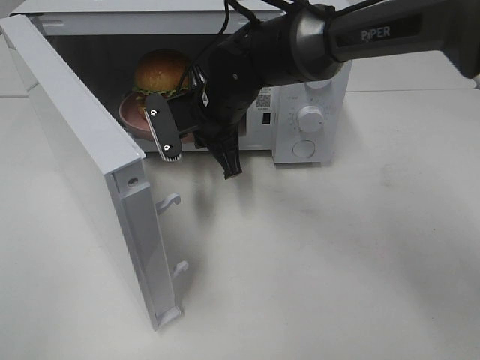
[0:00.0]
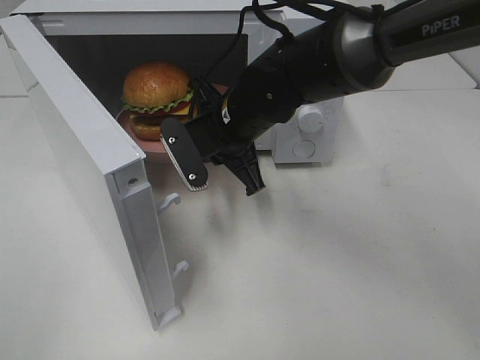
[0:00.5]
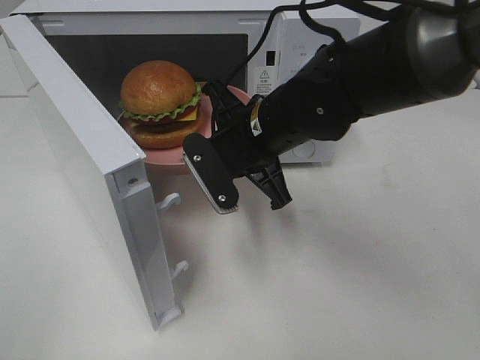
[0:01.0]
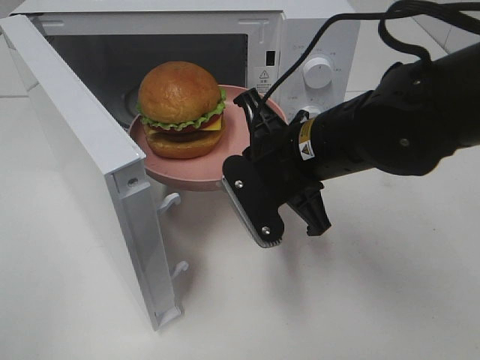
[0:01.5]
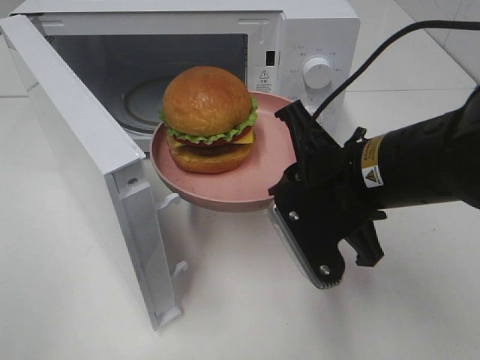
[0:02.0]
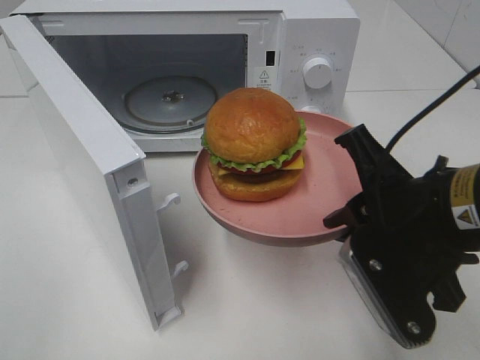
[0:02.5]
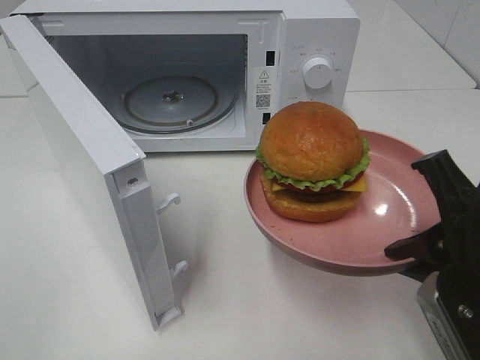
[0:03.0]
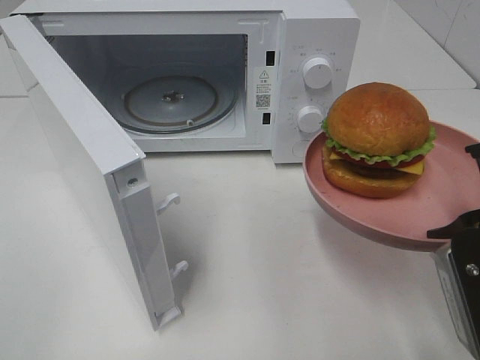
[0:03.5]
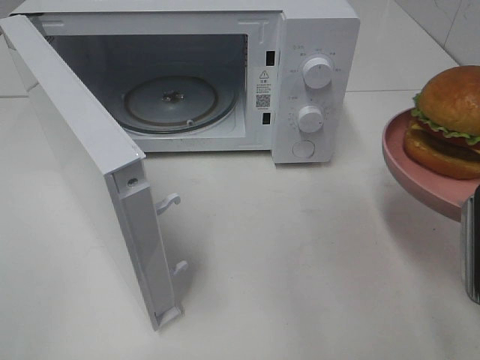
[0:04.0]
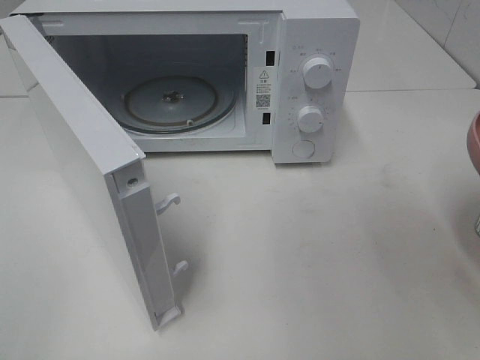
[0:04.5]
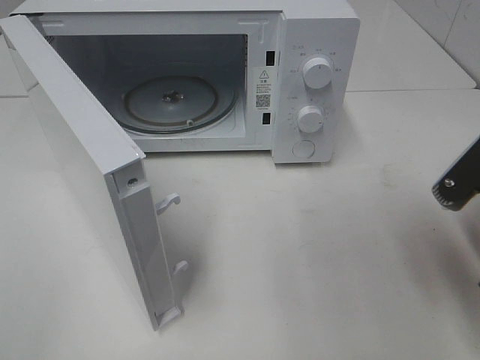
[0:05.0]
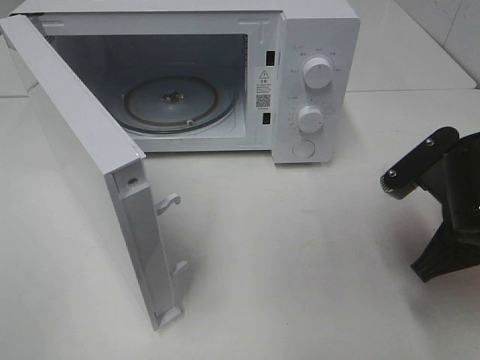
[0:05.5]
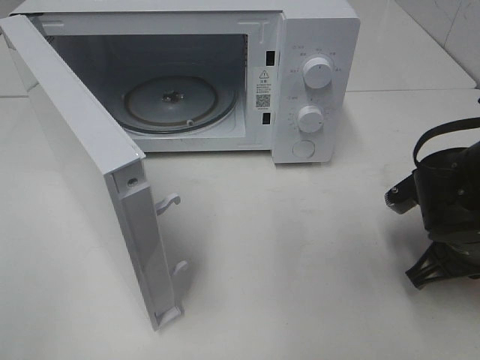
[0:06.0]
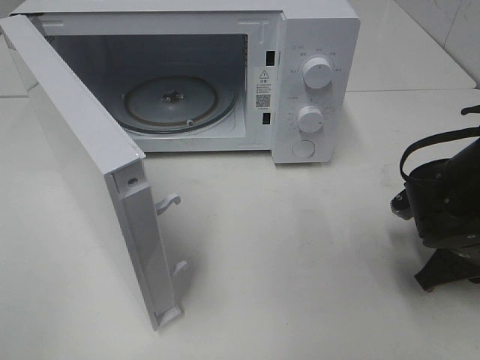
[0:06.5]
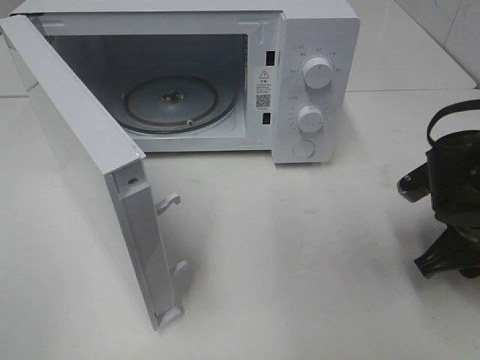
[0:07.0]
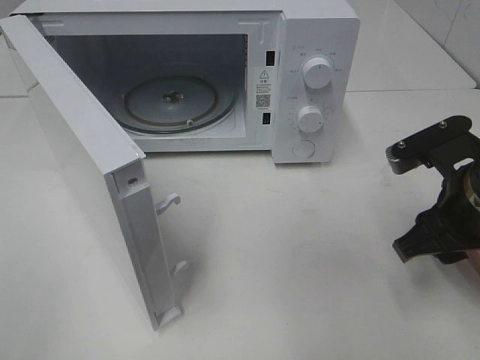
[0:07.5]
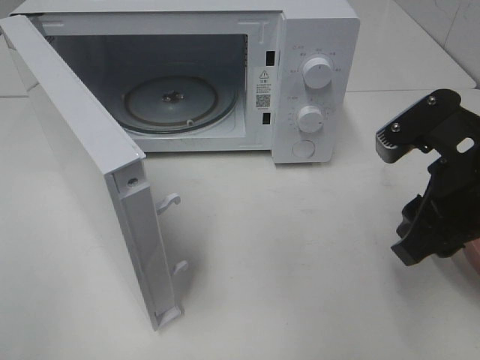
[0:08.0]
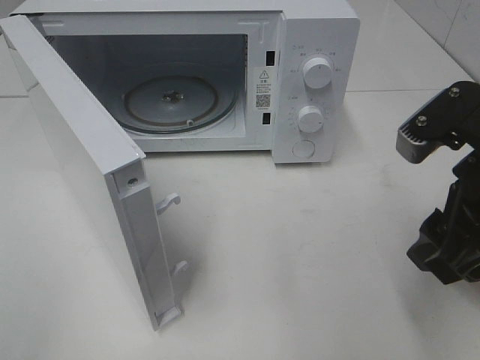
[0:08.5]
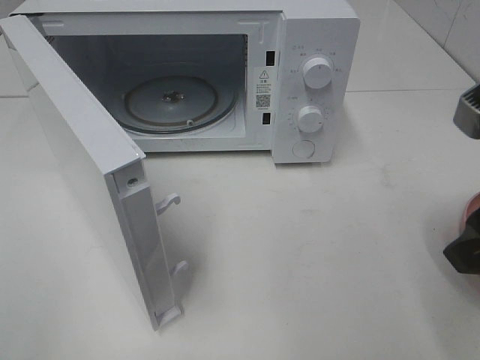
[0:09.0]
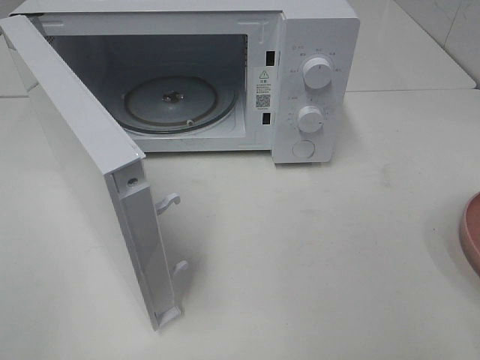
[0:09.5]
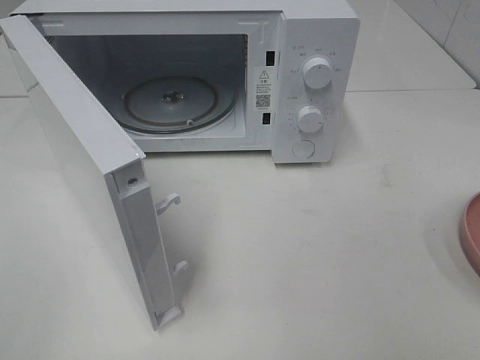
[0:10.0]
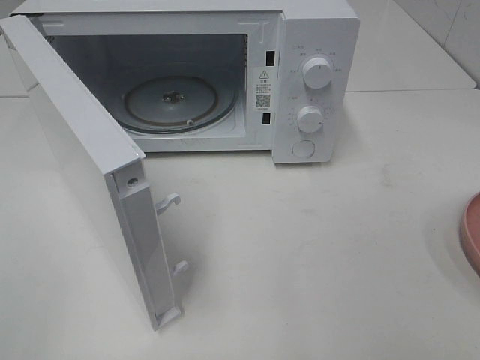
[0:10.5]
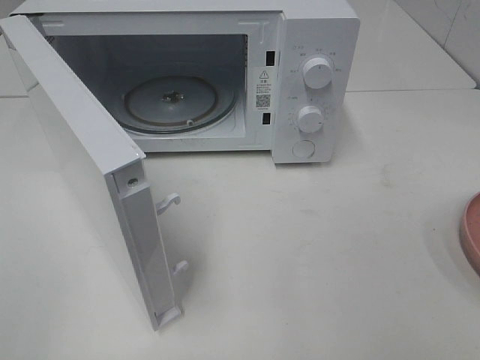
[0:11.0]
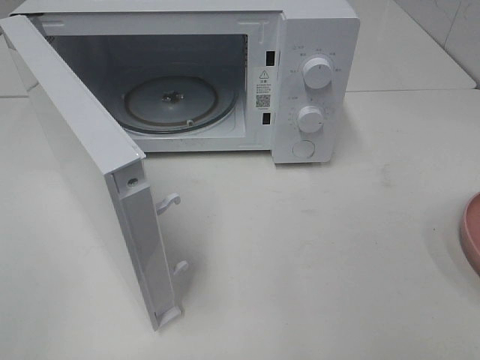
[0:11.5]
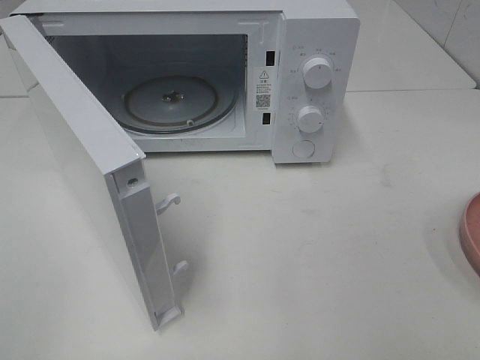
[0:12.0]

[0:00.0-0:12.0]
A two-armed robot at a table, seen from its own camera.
Task of the whole recording: Heat the burger.
Step, 0.0 to 7.0 s: Right hand: place the plate on the table.
0.0 to 2.0 s: The right gripper travels backward and to the right by some 20 cm.
2.0 to 4.0 s: The right gripper goes roughly 15 cm to the right and backward.
4.0 to 6.0 s: The right gripper moves downward and forward, about 15 cm.
6.0 to 8.0 s: The right gripper goes some 10 cm upward, and opens up.
8.0 to 10.0 s: The right gripper moves backward, to the right and upward, approximately 20 cm.

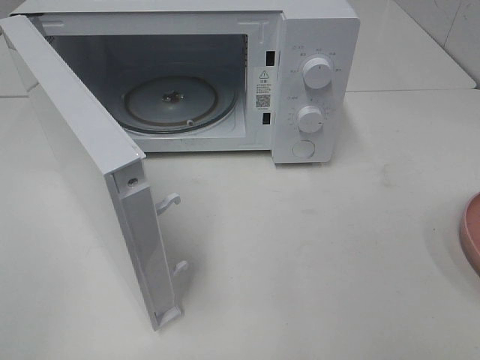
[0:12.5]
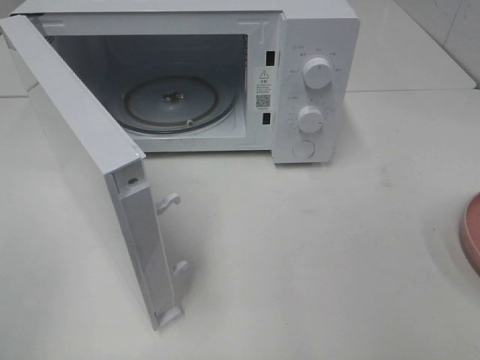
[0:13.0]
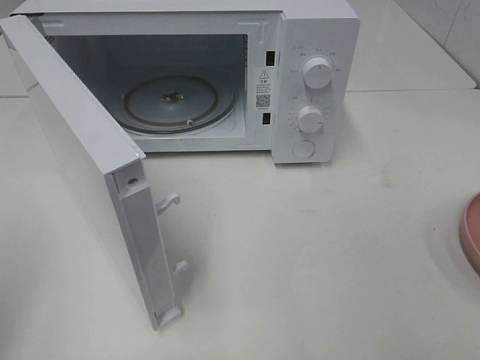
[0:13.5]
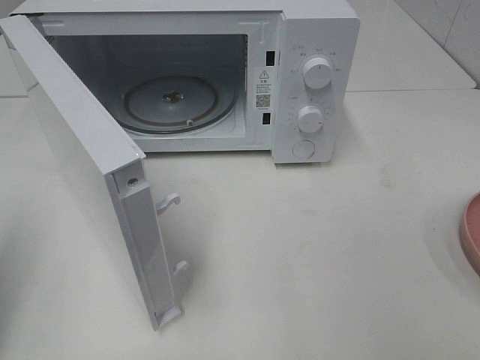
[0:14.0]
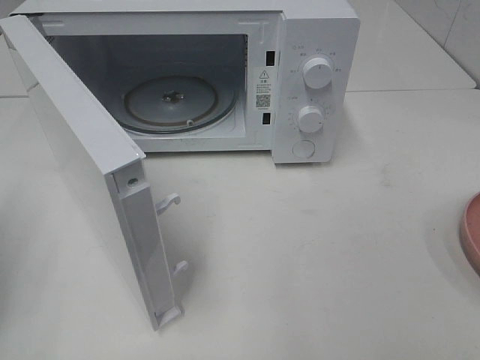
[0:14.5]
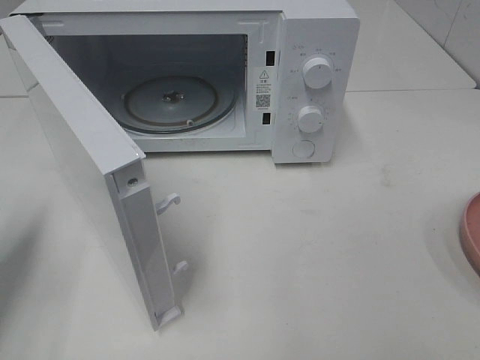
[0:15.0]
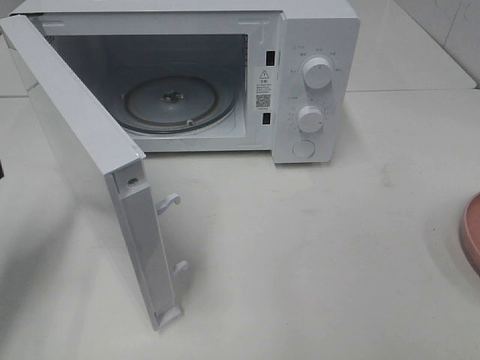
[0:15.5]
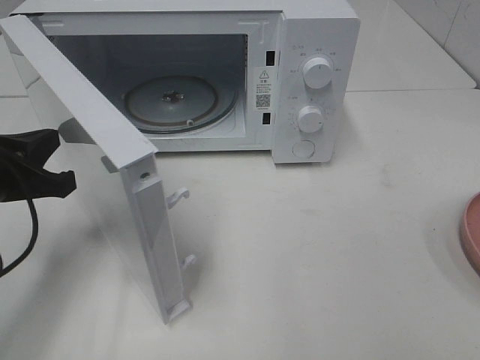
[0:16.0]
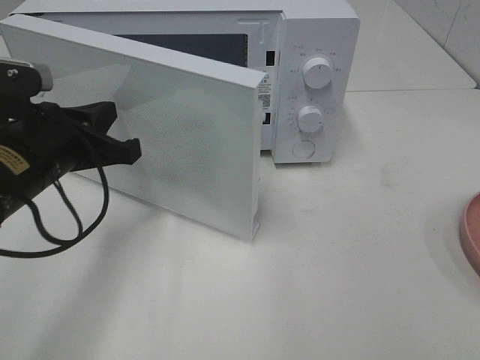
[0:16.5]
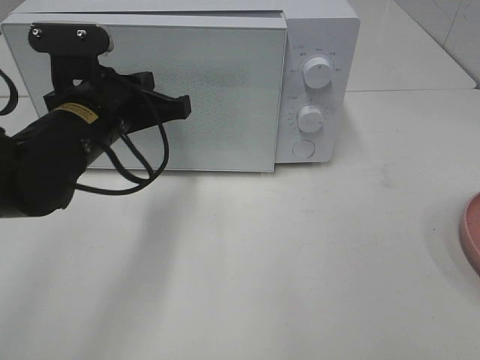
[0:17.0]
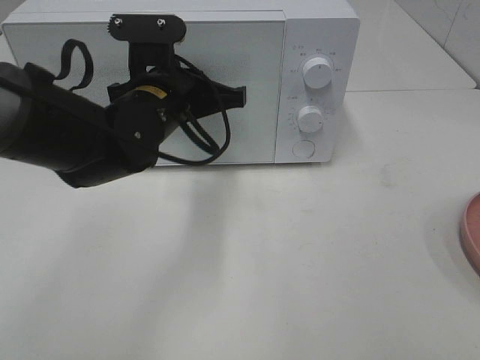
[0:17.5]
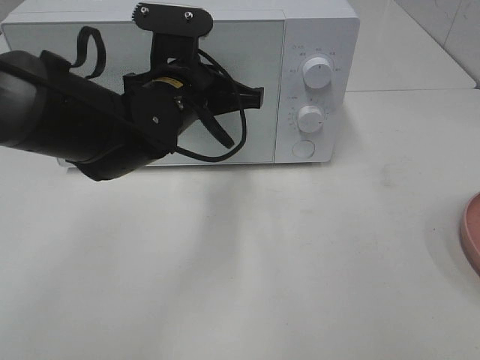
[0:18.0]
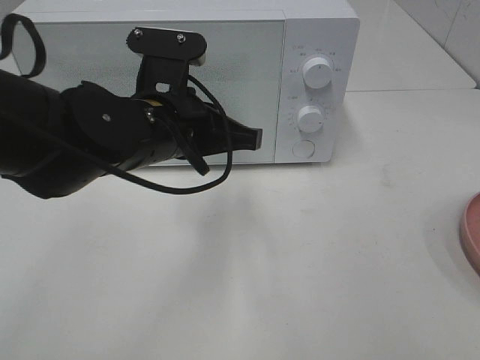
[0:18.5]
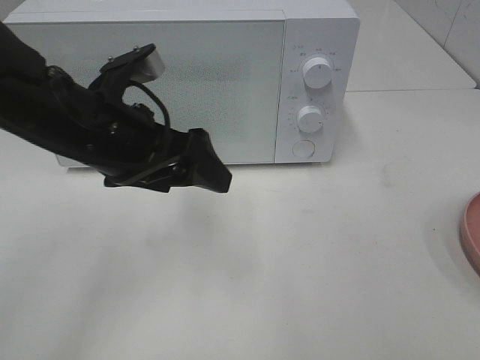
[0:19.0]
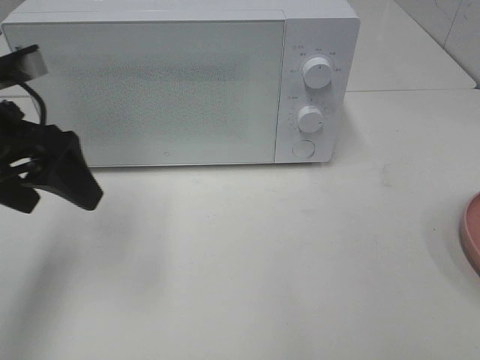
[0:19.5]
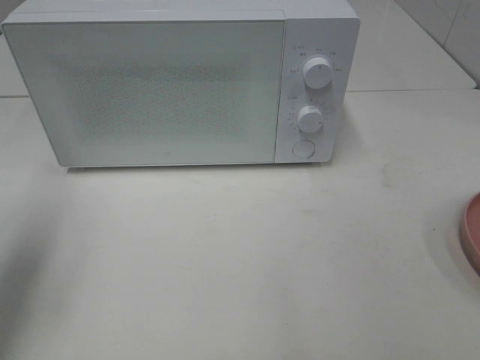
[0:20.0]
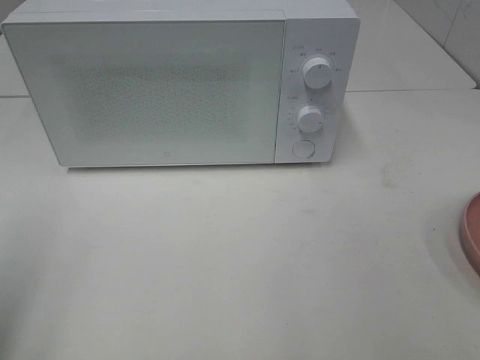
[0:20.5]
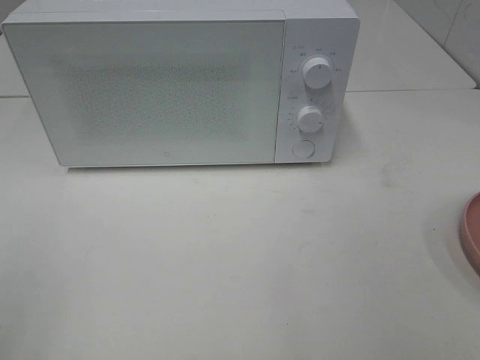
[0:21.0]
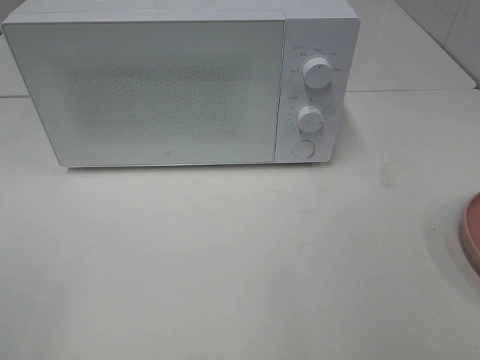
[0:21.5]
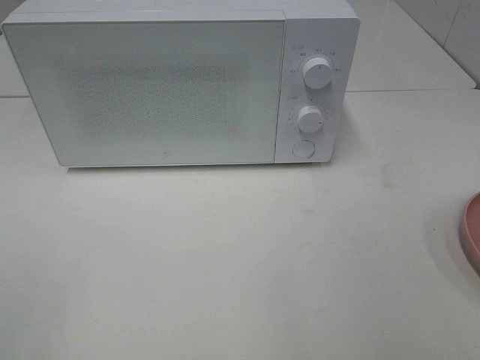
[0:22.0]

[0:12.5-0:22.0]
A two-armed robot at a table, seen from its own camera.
Task of the whole recording: Heat the burger.
Step, 12.5 to 18.5 s: Left hand: close the microwave door.
14.5 to 16.5 s: The left gripper heads to the right and forward, covering about 20 cm.
16.5 to 18.0 s: The left gripper shifts roughly 15 cm to the right and forward.
18.0 to 20.0 s: The left gripper heads to the left and backward, covering roughly 30 cm, and opens.
20.0 to 22.0 s: The left gripper travels backward by about 20 cm.

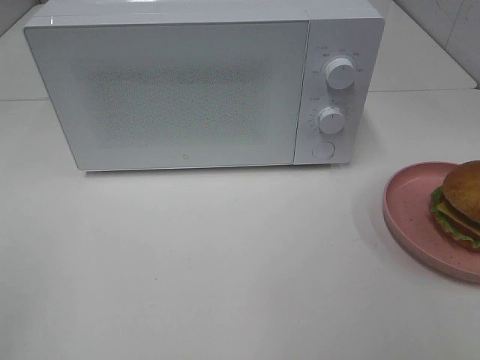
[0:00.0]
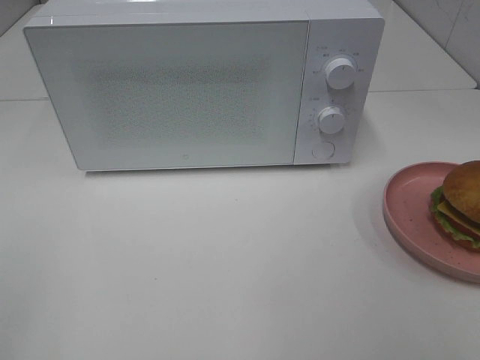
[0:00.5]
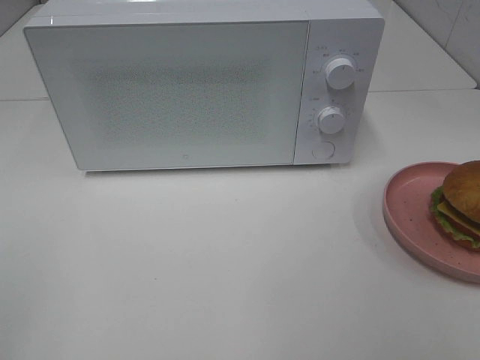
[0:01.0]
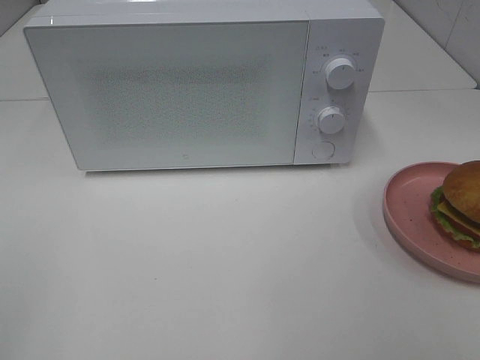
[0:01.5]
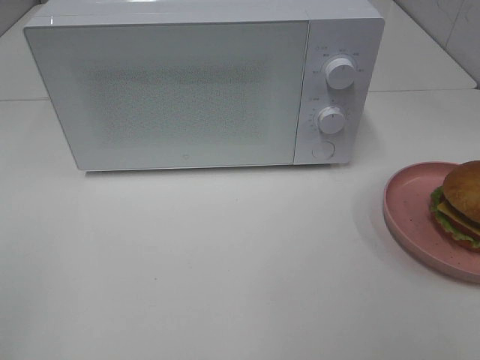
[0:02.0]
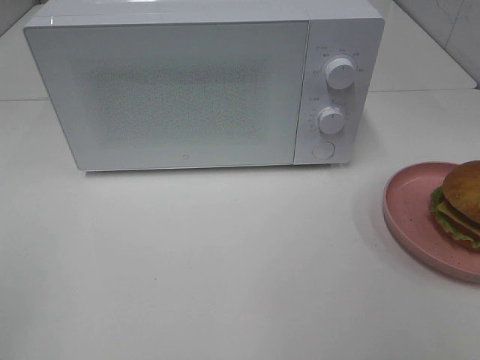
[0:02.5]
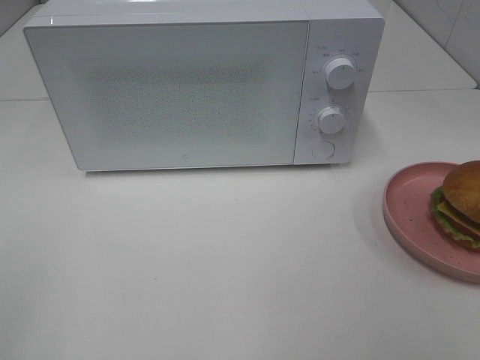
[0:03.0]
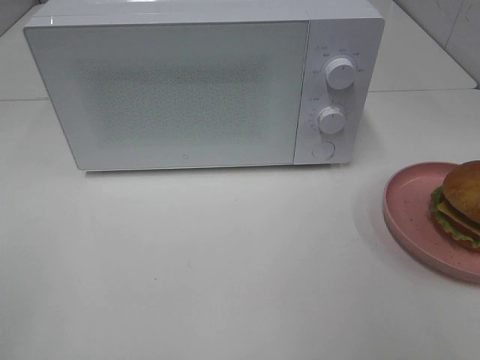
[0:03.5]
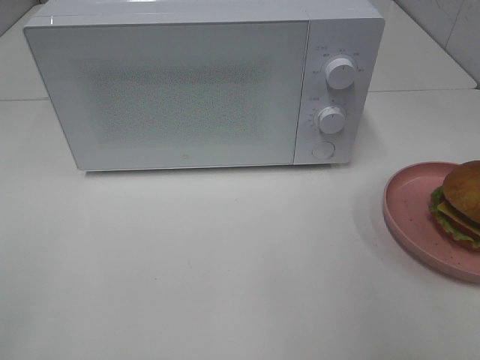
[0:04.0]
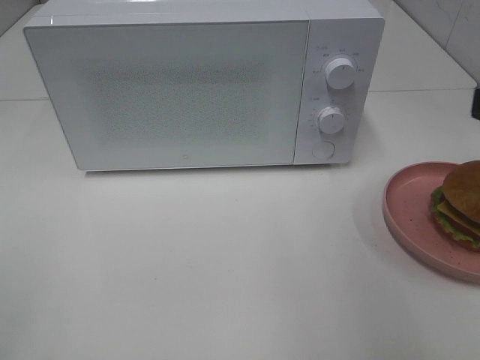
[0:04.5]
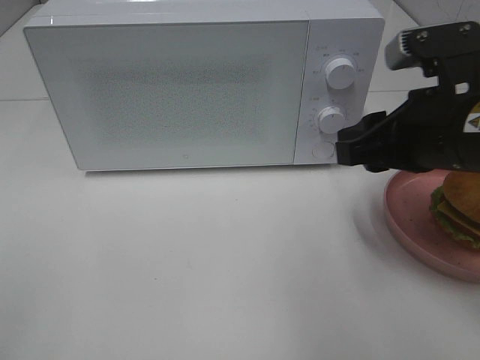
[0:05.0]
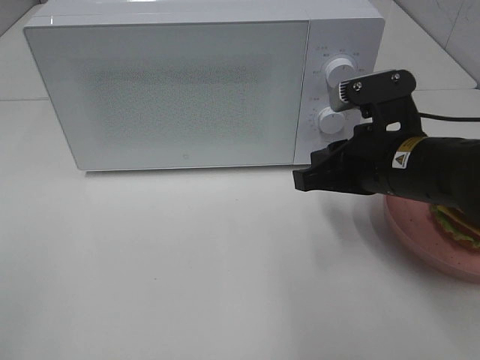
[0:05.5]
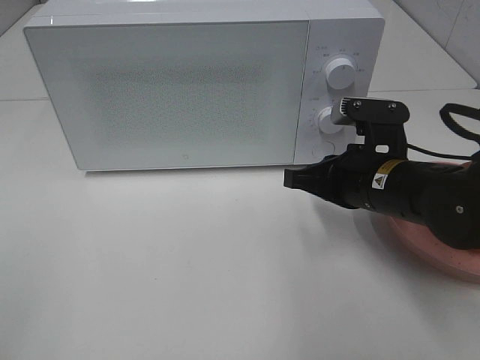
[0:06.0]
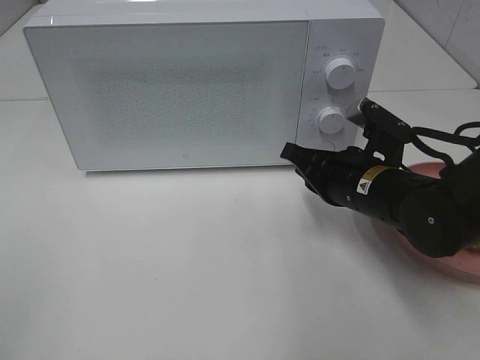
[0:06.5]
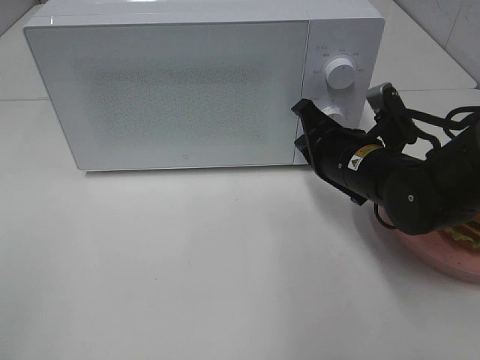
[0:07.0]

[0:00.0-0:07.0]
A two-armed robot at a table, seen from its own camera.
Task of the whole recording: Heat the burger.
0.0 to 2.0 s: Both grippers stay put.
3.5 to 5.0 s: The right gripper moves forward, to the left and downward, roughly 20 cm.
5.0 to 7.0 s: The right gripper is displaced downward and forward by about 15 cm, and closes its fingers.
